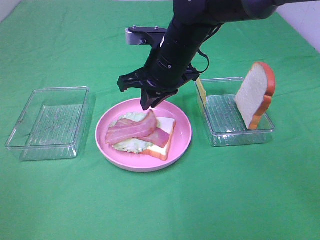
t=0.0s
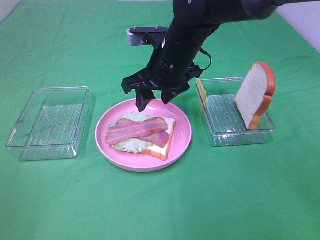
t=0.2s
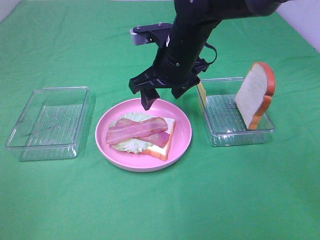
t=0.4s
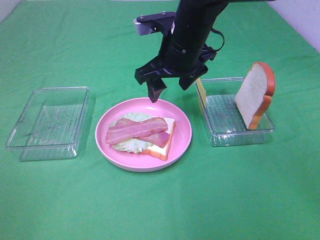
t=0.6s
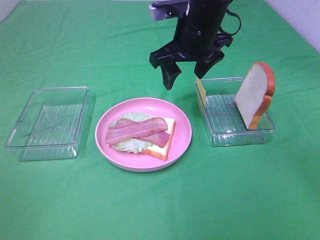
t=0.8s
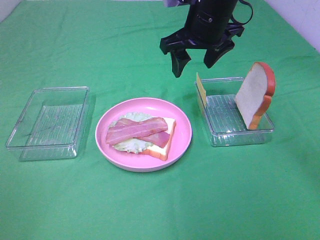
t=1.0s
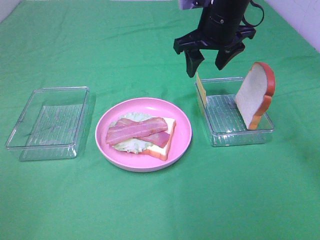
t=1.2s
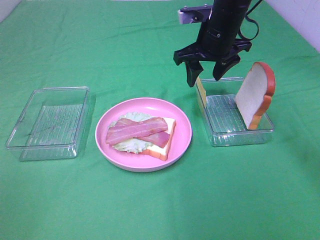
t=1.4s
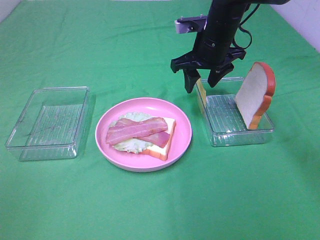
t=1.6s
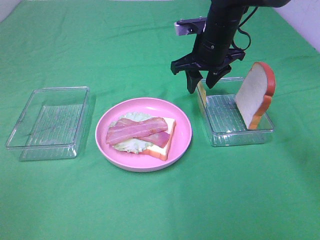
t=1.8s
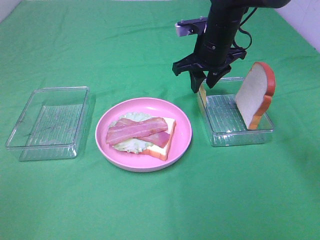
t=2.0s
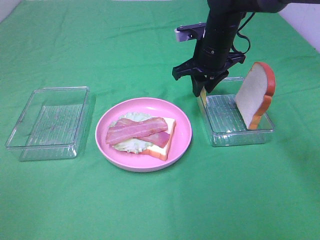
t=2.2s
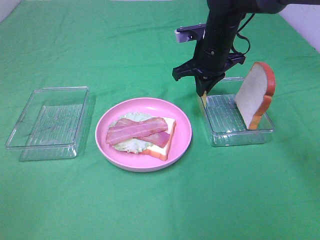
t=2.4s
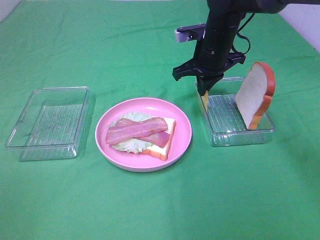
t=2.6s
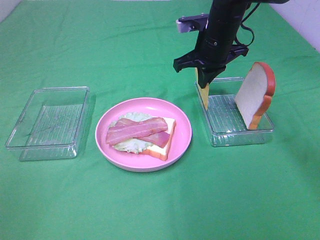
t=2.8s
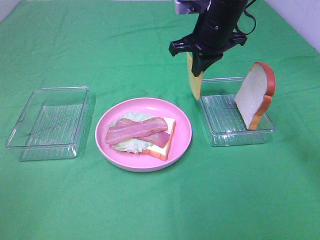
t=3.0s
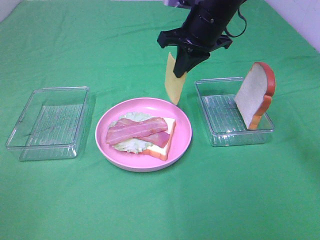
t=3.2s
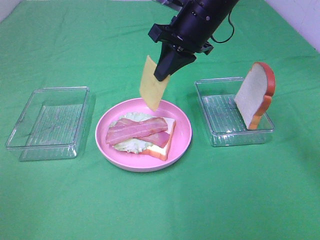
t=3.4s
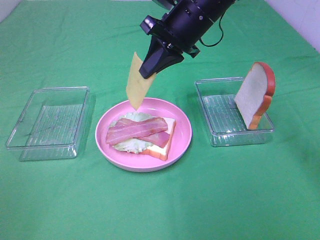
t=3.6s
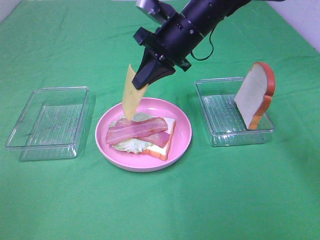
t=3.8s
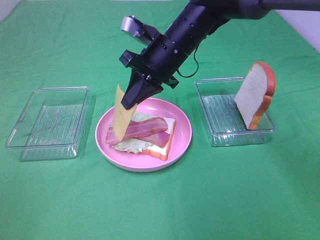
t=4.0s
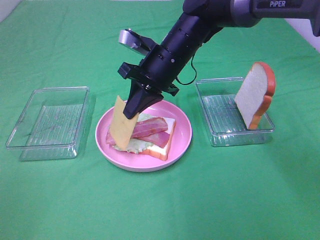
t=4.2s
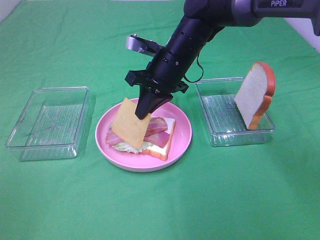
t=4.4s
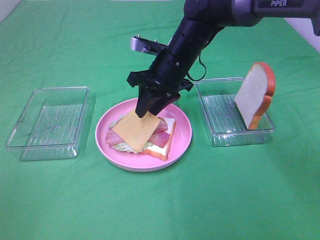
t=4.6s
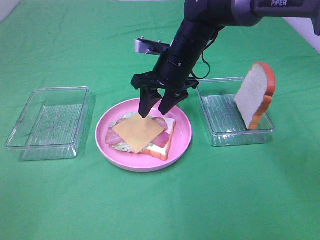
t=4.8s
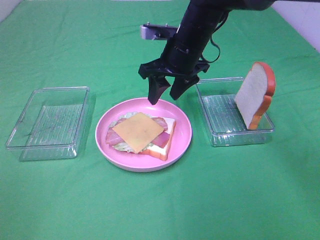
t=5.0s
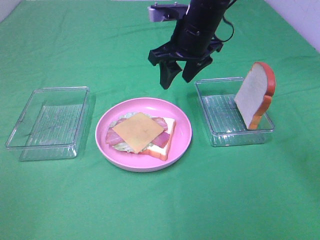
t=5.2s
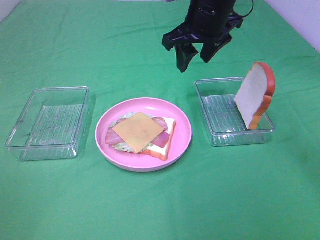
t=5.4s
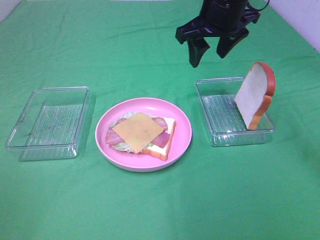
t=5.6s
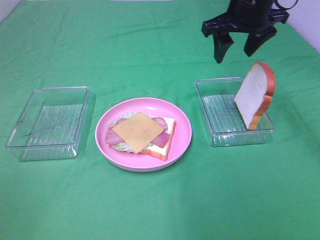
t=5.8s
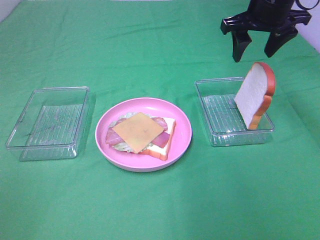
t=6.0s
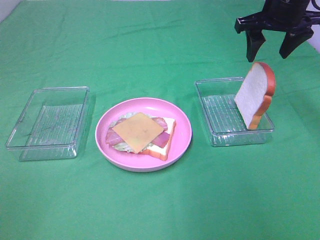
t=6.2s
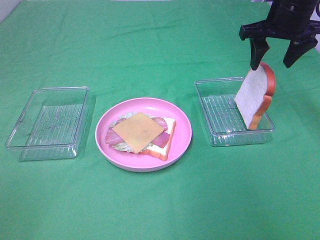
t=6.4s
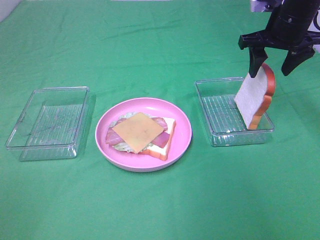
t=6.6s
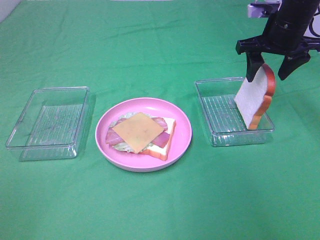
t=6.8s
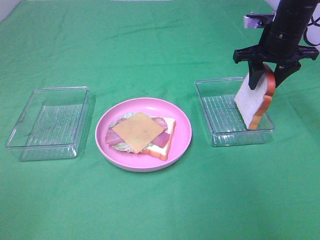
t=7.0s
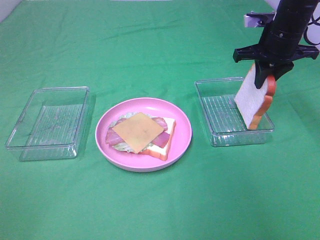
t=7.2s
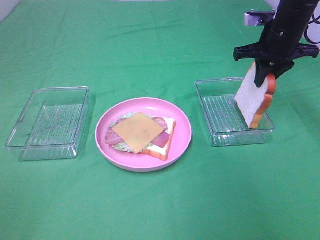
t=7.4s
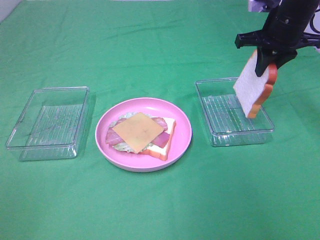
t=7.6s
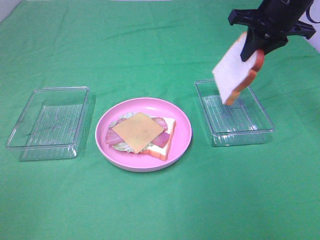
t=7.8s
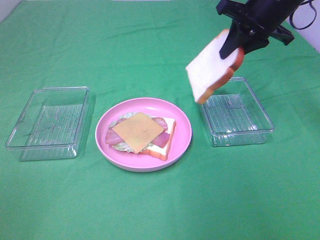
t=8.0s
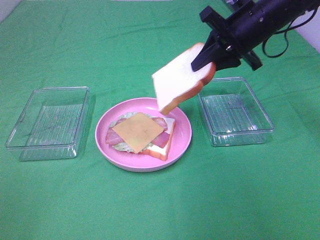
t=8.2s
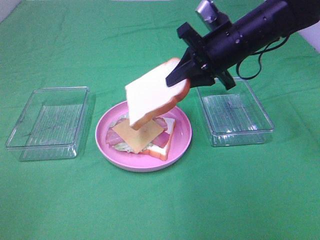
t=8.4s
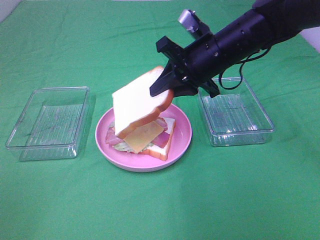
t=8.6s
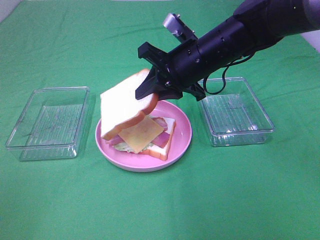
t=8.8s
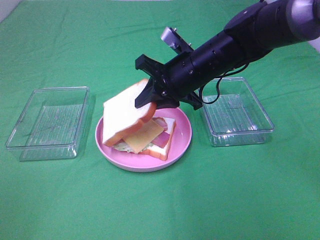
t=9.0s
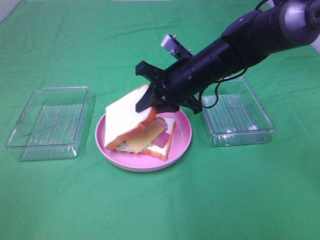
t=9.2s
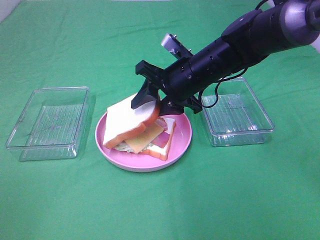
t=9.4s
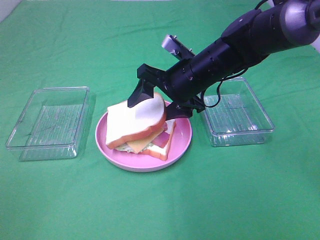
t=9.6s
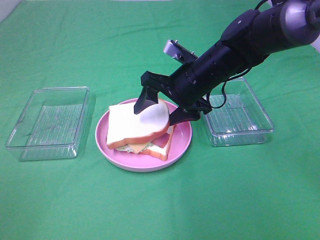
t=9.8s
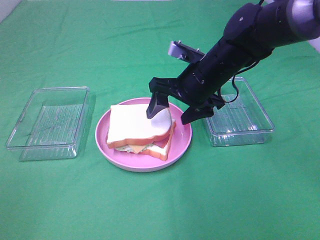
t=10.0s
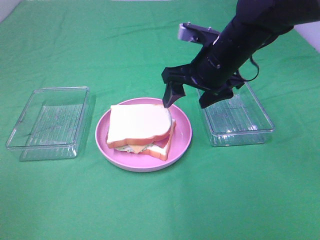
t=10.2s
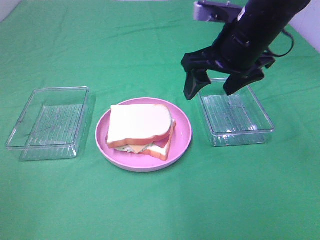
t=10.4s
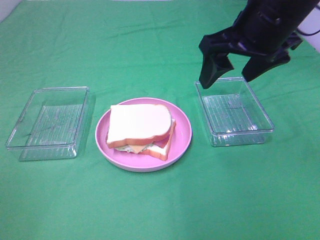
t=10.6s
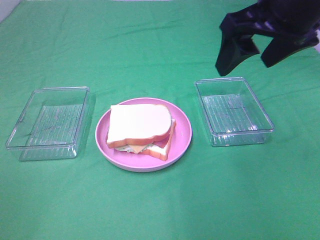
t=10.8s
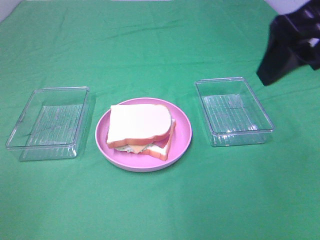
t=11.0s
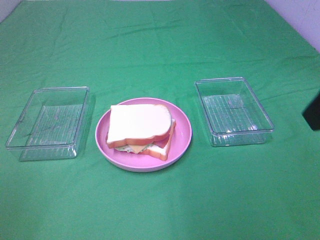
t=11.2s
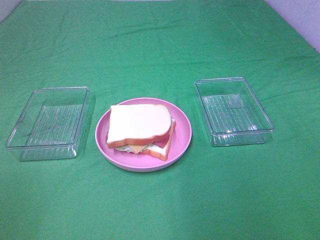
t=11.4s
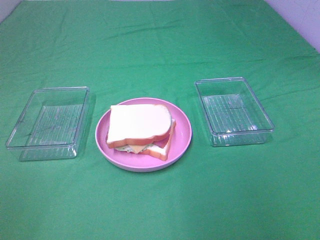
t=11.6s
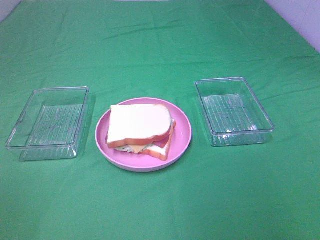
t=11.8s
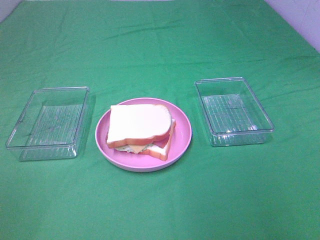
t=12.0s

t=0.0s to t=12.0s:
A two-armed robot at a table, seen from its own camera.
Task of the whole recording: Make sandwiches.
Step, t=0.2s to t=2.6s: Right hand:grab the cheese slice.
Step, t=2.8s to t=4.6s: Right hand:place the cheese slice on top of the bacon.
Step, t=4.8s to t=7.2s: Right hand:grab the bread slice.
Step, t=7.4s to t=9.8s: Right hand:place the bread slice on the cheese slice.
t=0.0s to t=1.6s: The right gripper moves to the right and forward, about 10 cm, and opens.
t=1.6s to t=3.0s: The right gripper closes its fingers.
t=3.0s to t=4.4s: The right gripper heads to the left and downward, covering roughly 10 cm.
t=4.4s to t=6.0s: The right gripper goes some 20 cm to the right and upward, and opens up.
t=6.0s to t=7.6s: The right gripper closes up.
t=7.6s to t=9.0s: The right gripper is displaced to the left, downward and backward by approximately 20 cm.
t=9.0s to t=10.4s: The right gripper shifts some 10 cm upward and to the right, and opens its fingers.
t=10.4s to t=12.0s: The right gripper is displaced backward and to the right by about 35 cm.

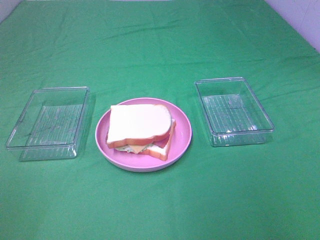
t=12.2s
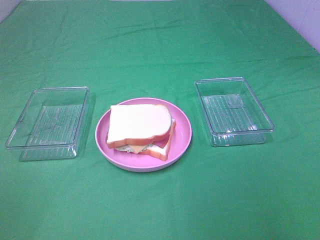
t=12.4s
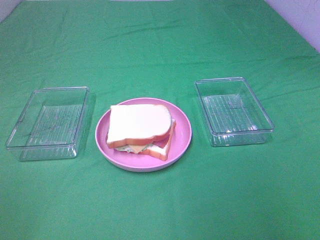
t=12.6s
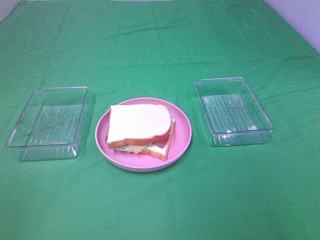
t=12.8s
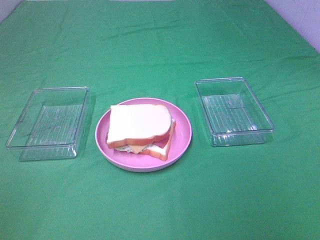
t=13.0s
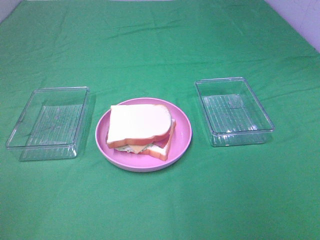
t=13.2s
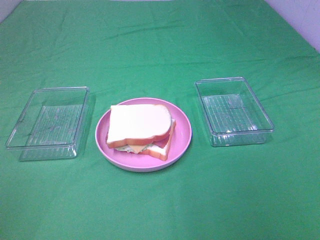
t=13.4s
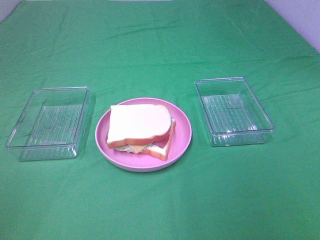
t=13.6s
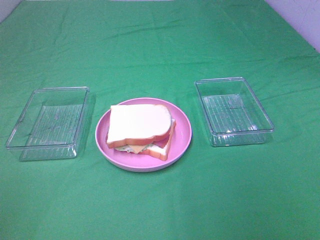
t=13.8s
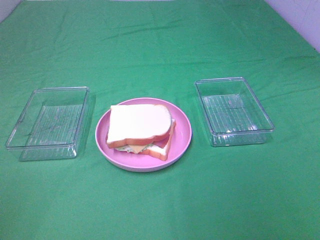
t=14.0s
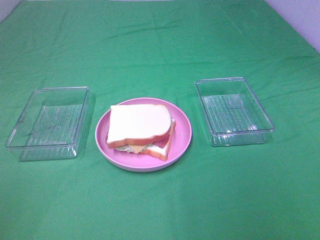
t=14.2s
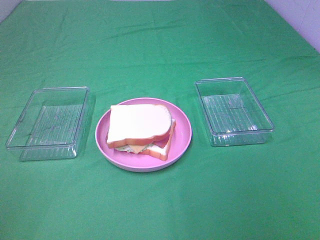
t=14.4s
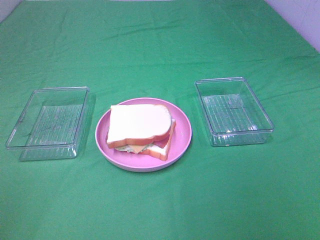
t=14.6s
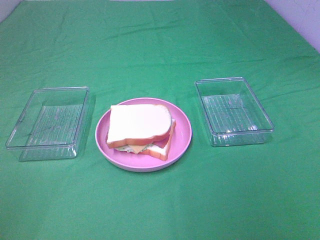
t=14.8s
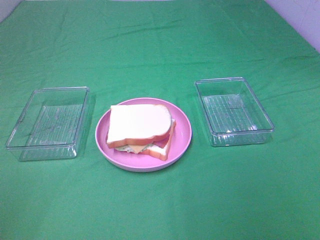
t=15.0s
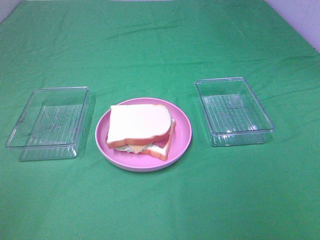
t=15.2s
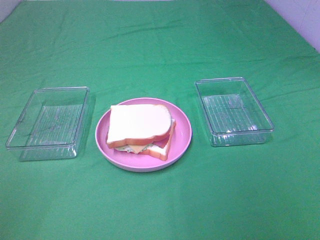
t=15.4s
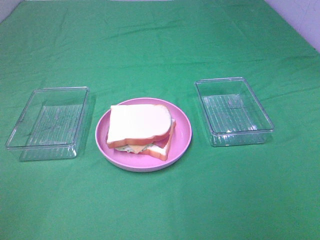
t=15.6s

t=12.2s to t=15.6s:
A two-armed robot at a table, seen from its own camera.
Task of the whole recording: Make sandwiches.
t=13.8s to t=15.6s: The two grippers keep their place.

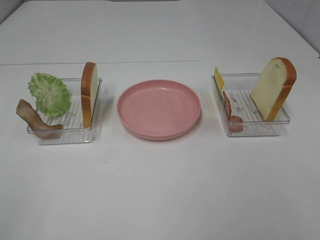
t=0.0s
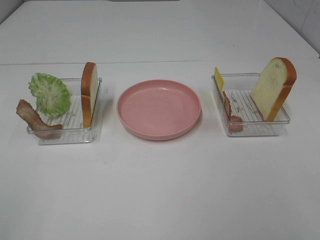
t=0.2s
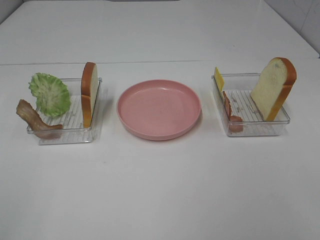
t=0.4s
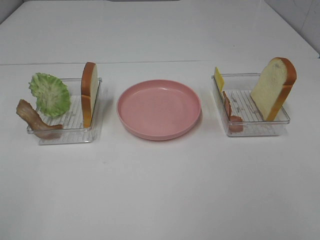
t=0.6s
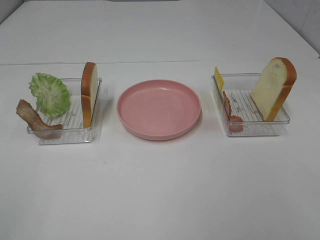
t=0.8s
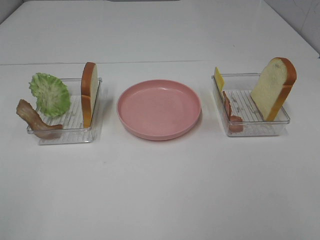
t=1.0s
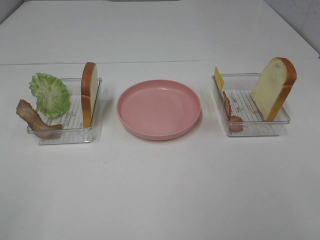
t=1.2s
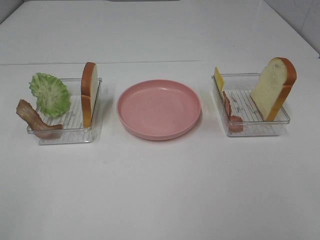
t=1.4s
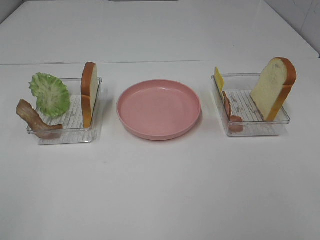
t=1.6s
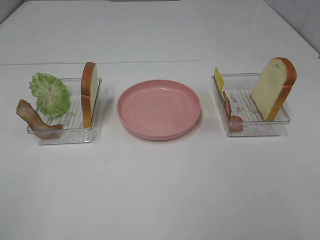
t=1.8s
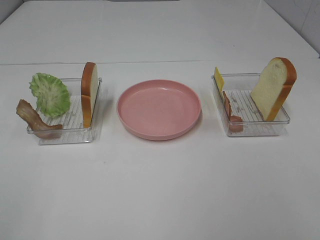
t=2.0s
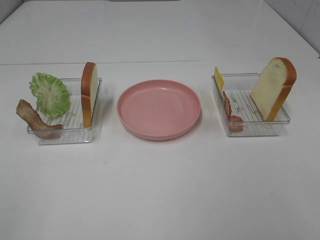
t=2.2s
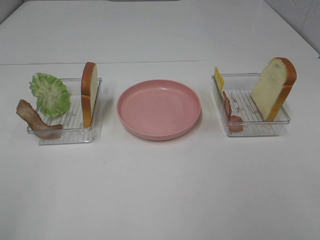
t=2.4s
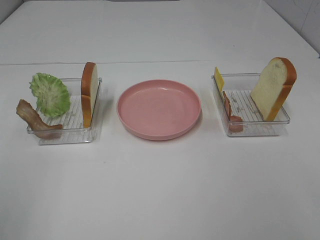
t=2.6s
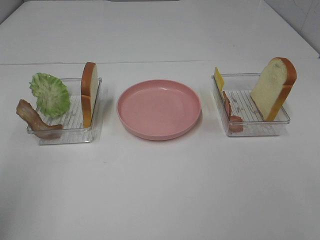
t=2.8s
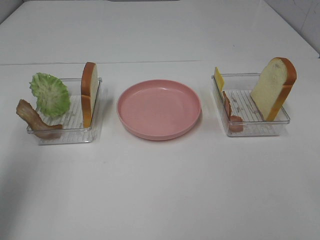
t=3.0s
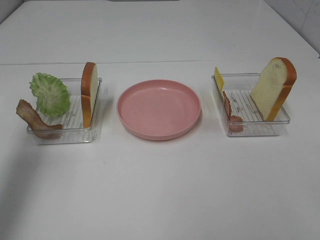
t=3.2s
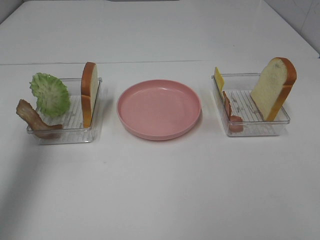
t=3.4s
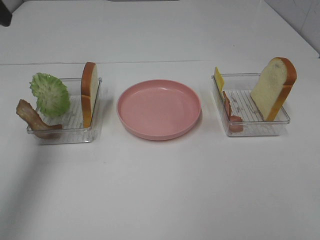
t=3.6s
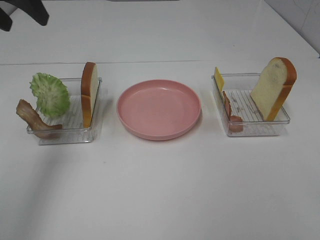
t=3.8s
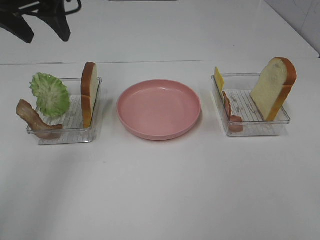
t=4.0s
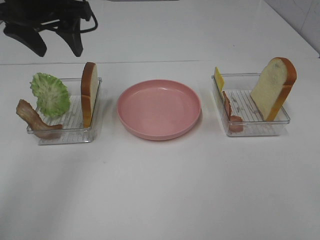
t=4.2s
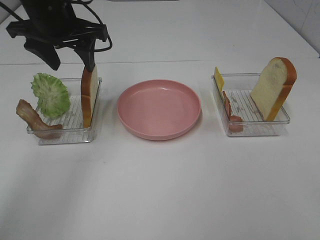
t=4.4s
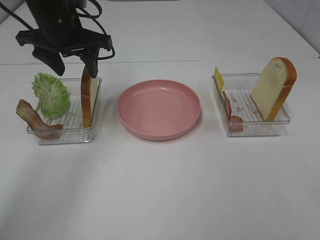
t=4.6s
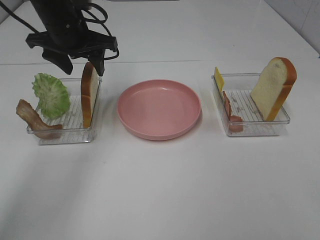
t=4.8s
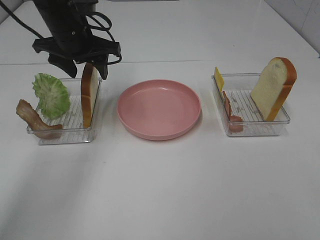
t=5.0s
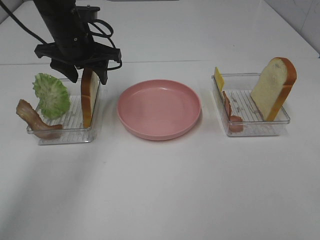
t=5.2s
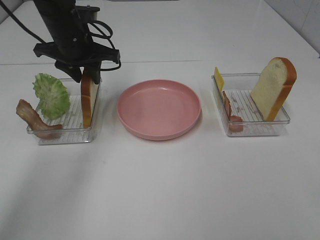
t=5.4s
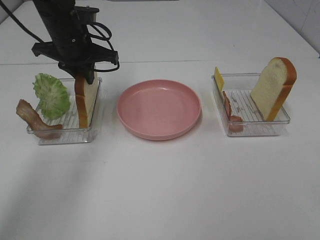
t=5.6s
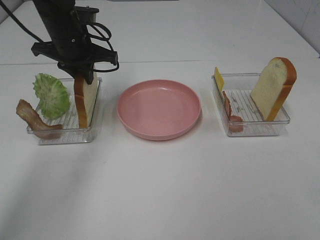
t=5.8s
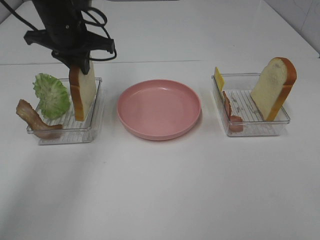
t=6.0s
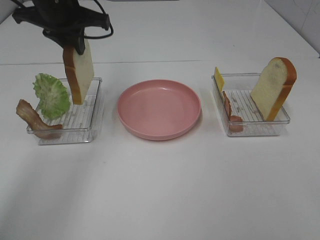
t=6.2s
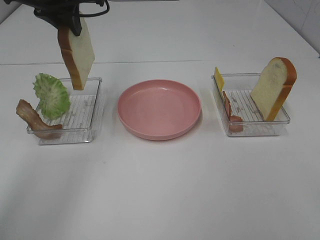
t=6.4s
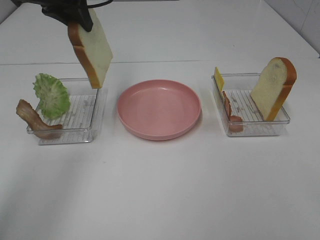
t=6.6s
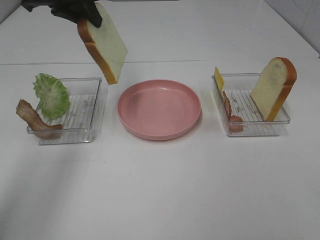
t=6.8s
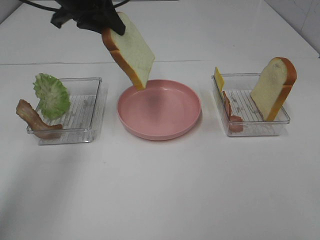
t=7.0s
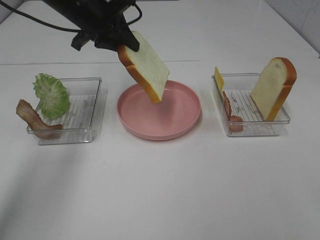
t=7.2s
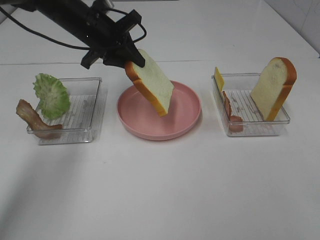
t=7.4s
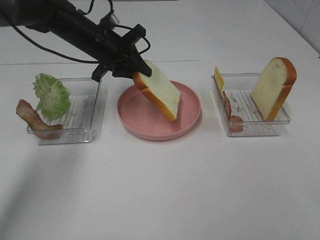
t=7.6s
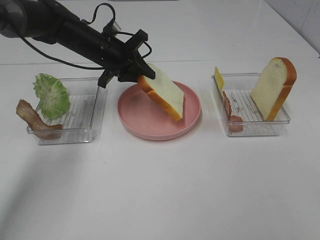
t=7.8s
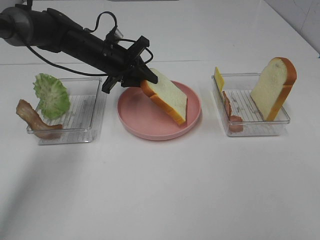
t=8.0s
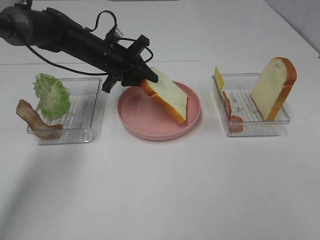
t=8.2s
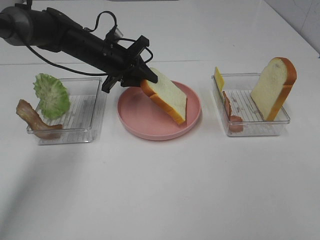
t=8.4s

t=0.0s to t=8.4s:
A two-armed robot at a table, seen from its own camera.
Task of the whole recording: Make sandwiches.
Step, t=0.0s to t=5.6s: Left hand:grab the bread slice.
t=0.0s to t=1.4s: The two grippers keep their place.
t=1.4s to t=2.8s: The left gripper moves forward, roughly 10 cm.
t=2.8s to t=4.2s: The left gripper is displaced forward and to the right by approximately 30 cm.
t=4.2s to t=5.6s: The left gripper heads downward and forward, covering some 10 cm, and closes.
t=5.6s to t=7.0s: The left gripper heads upward, covering about 10 cm.
t=7.0s to t=8.4s: The left gripper goes roughly 15 cm downward.
